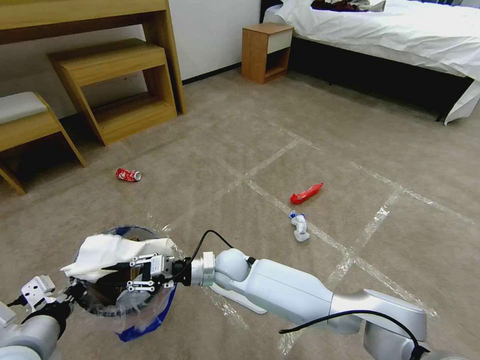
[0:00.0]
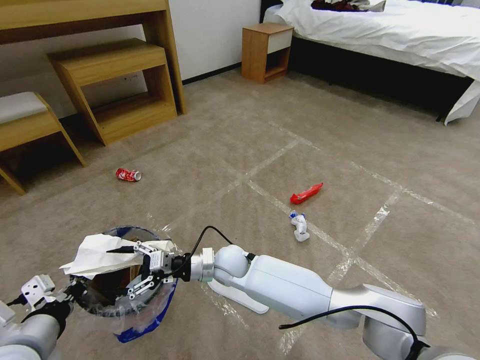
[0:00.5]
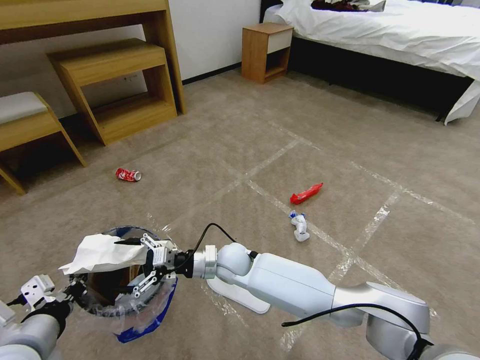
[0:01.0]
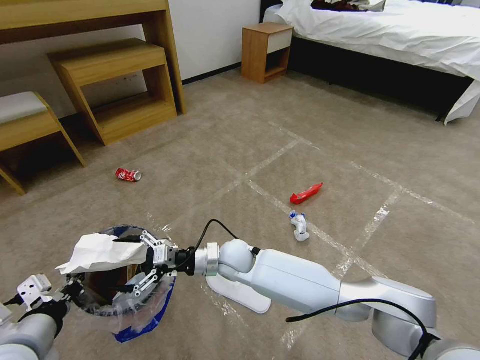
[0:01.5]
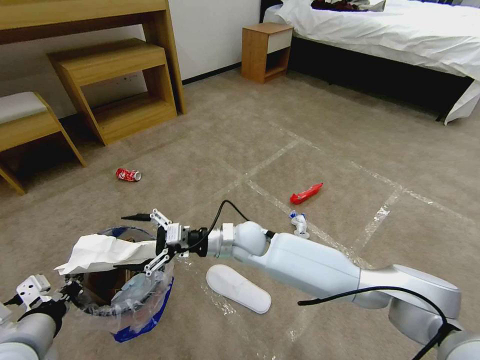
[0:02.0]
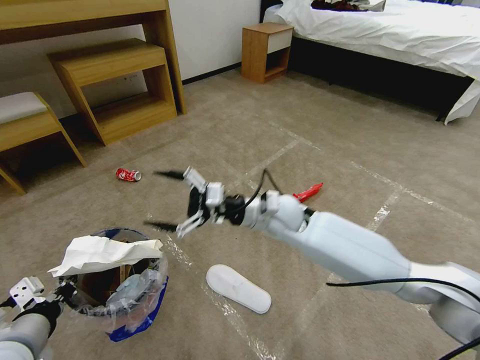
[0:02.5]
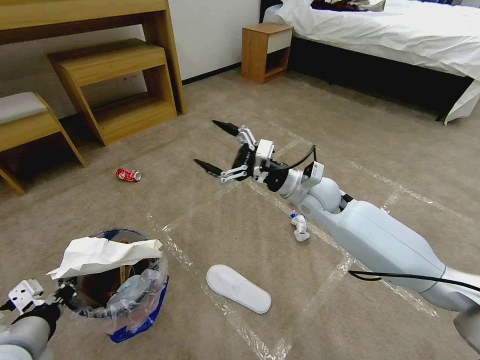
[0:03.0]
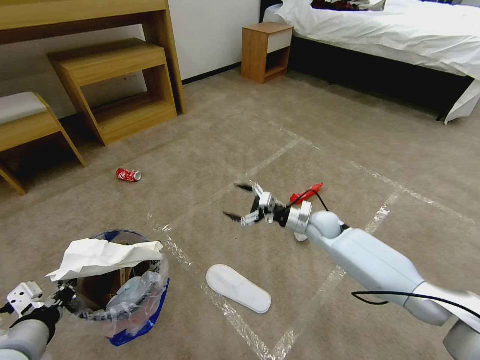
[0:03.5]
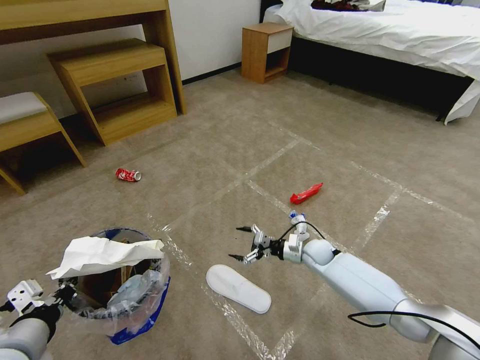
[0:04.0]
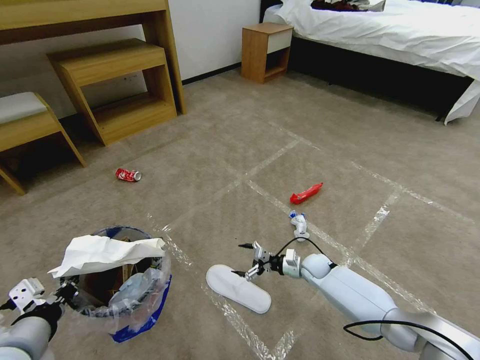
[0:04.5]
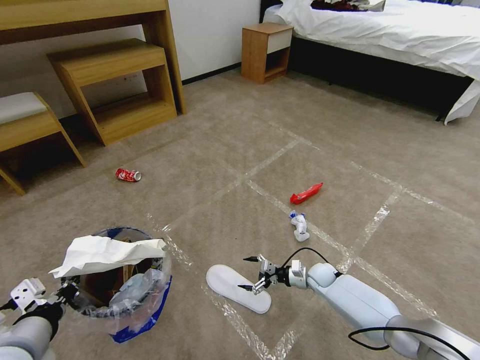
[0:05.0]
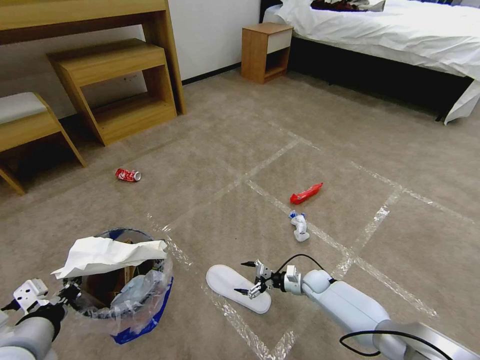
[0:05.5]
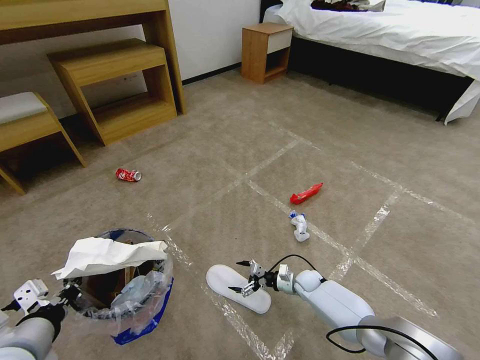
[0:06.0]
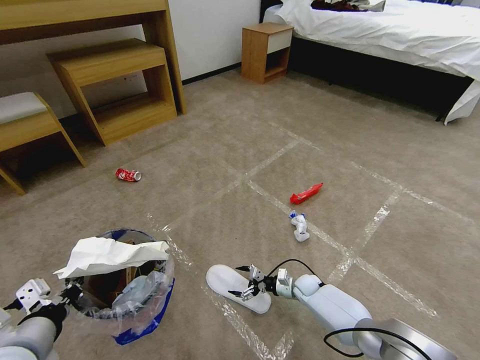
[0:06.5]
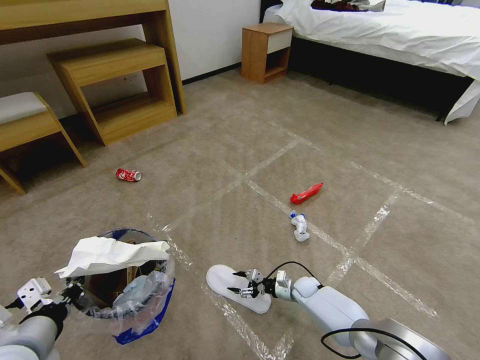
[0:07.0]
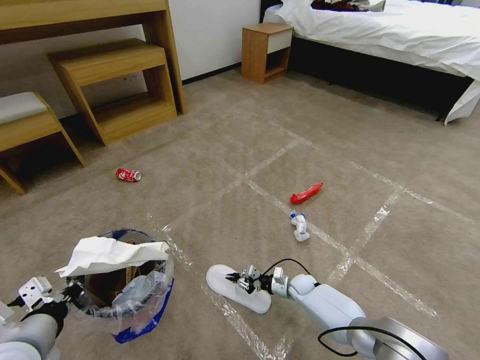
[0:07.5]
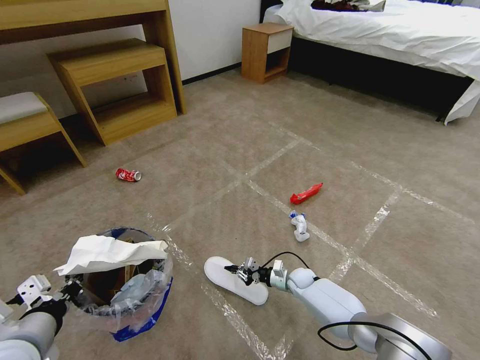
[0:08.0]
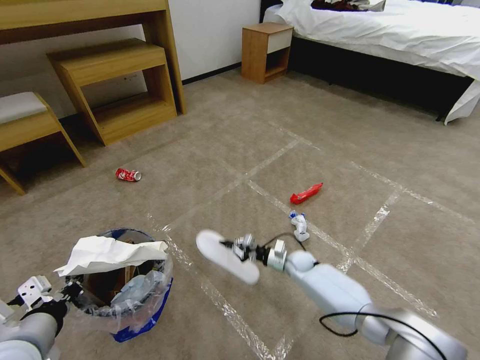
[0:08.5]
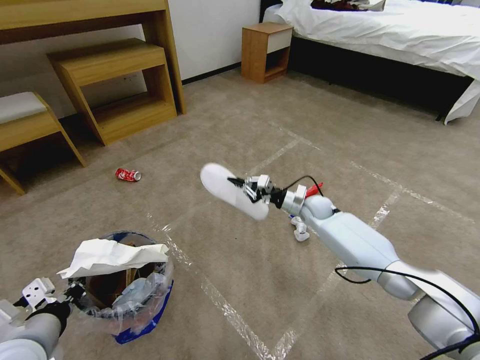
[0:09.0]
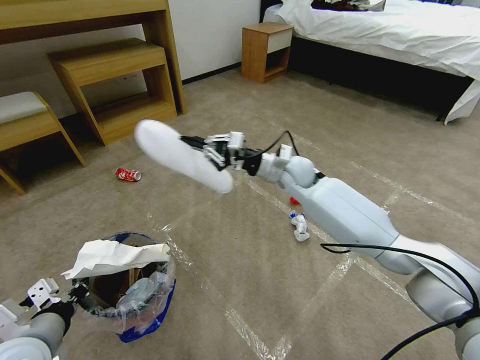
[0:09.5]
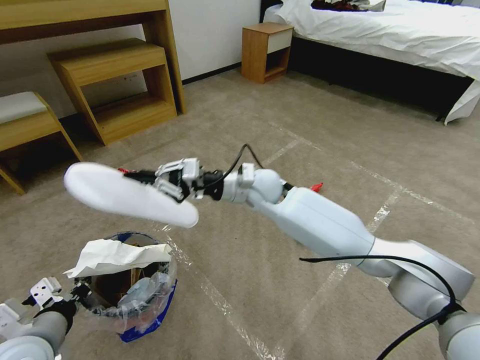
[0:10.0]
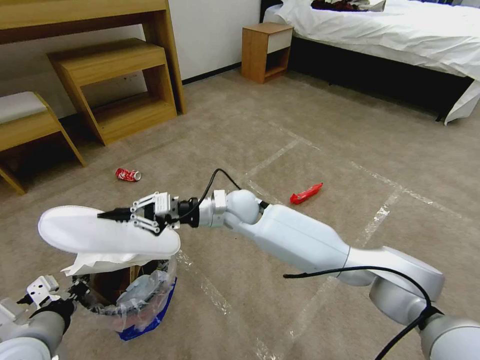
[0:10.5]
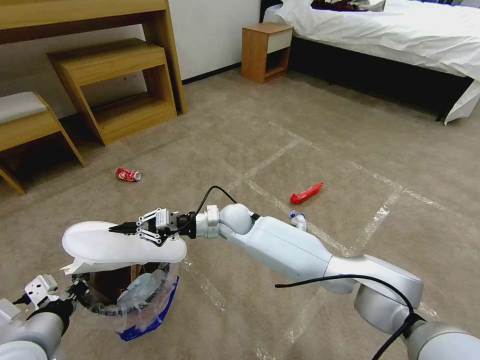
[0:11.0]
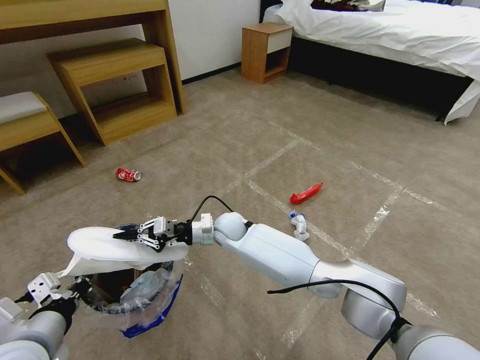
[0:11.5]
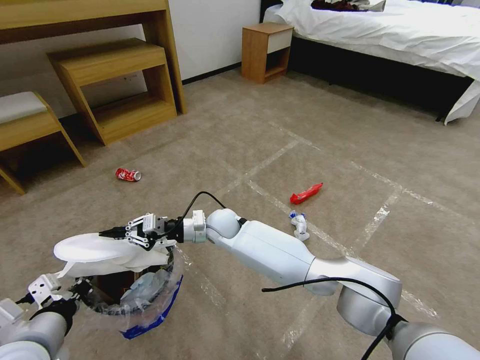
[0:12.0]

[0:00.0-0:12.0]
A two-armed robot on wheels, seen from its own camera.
Task of the whole recording: Pick up the trash bin and place the garbage on the floor into it.
0:00.0 to 0:02.0: The right gripper travels upward by about 5 cm, and opens its fingers.
0:02.0 to 0:04.0: The right gripper heads to the right and downward, covering approximately 30 cm.
0:04.0 to 0:06.0: The right gripper is displaced downward by roughly 10 cm.
0:06.0 to 0:08.0: The right gripper closes up.
0:08.0 to 0:10.0: The right gripper moves upward and to the left, about 40 cm.
0:10.0 to 0:12.0: The right gripper goes about 15 cm downward and to the left.

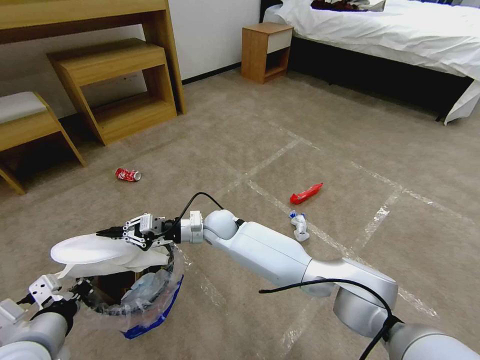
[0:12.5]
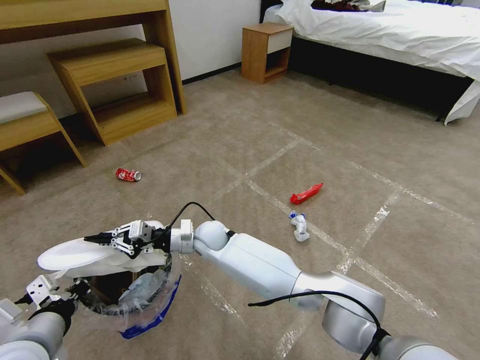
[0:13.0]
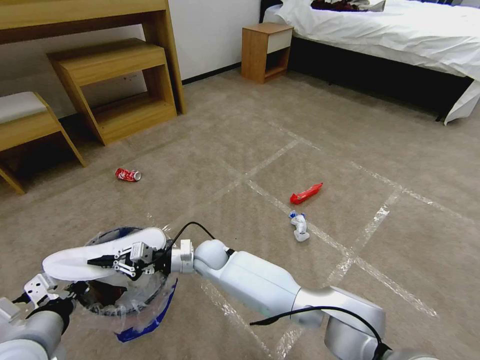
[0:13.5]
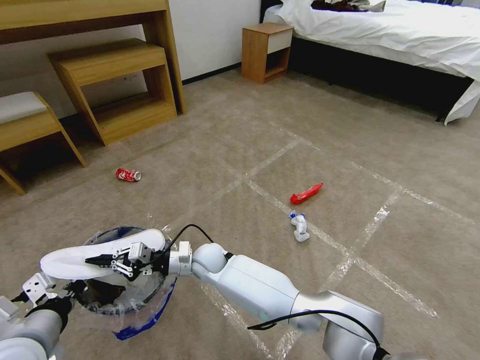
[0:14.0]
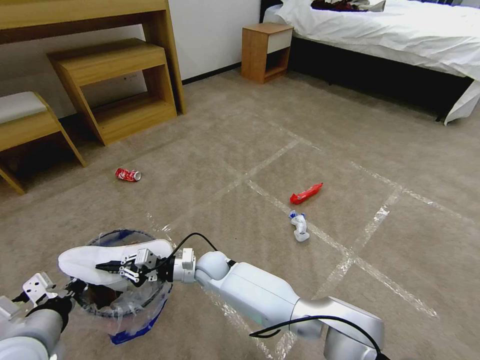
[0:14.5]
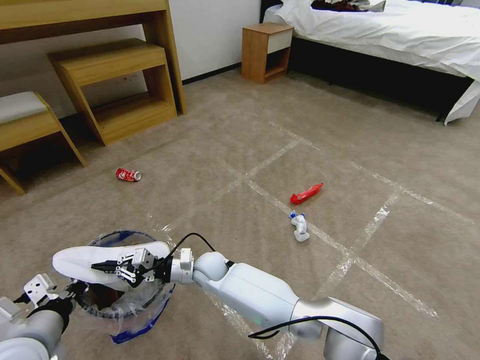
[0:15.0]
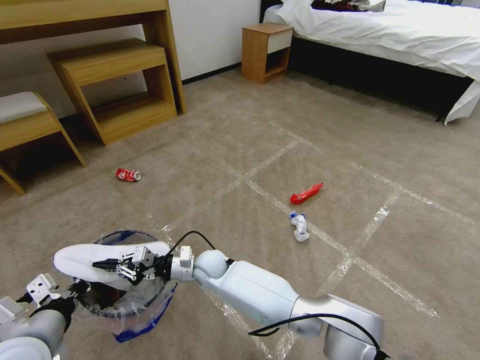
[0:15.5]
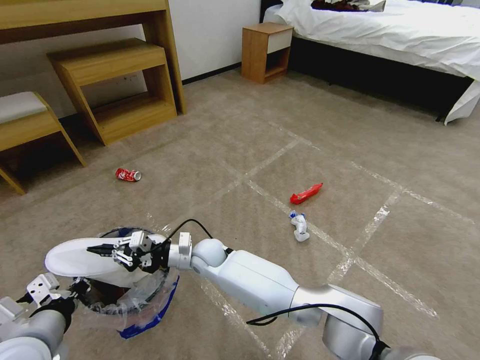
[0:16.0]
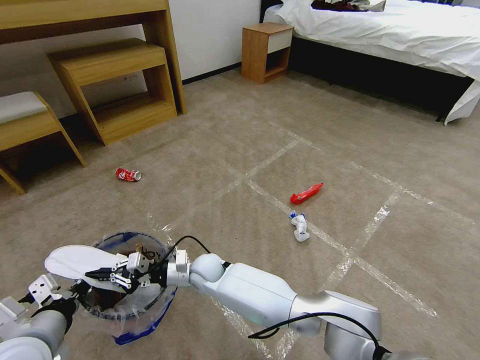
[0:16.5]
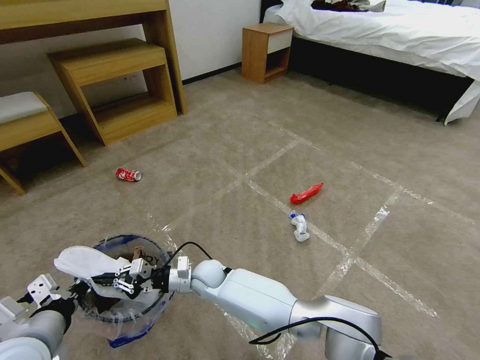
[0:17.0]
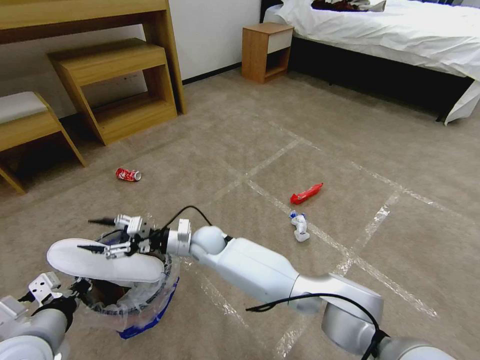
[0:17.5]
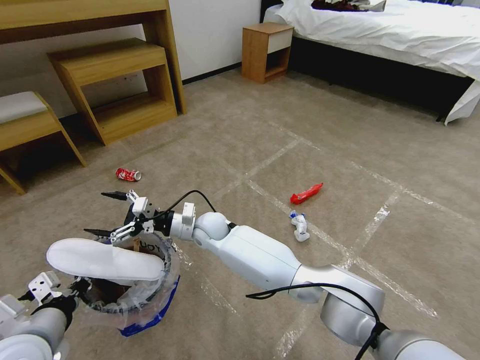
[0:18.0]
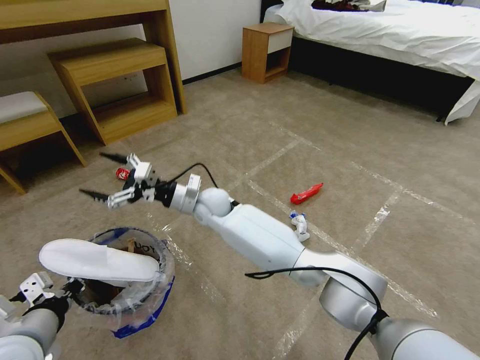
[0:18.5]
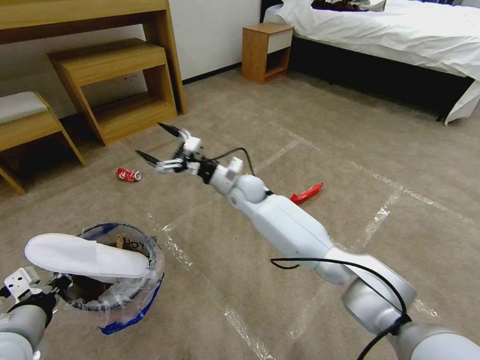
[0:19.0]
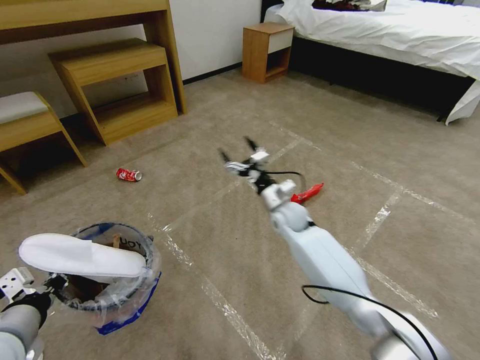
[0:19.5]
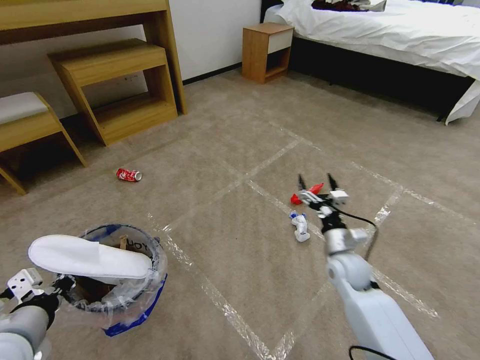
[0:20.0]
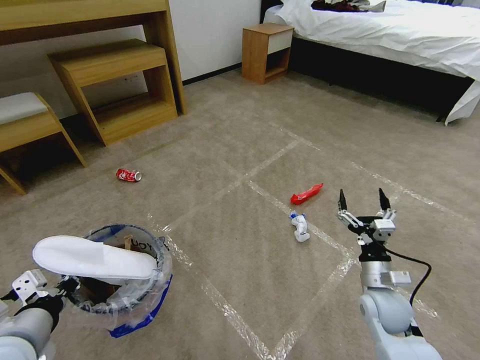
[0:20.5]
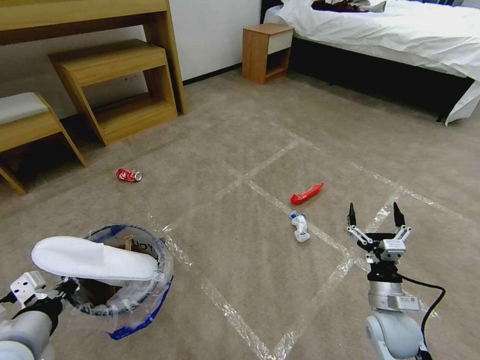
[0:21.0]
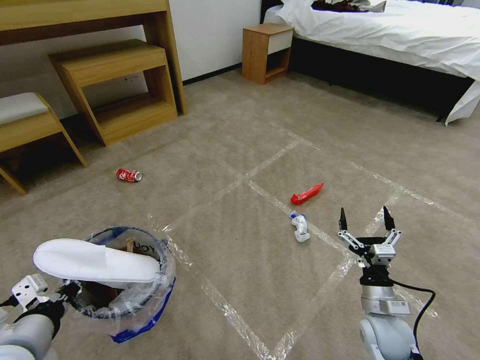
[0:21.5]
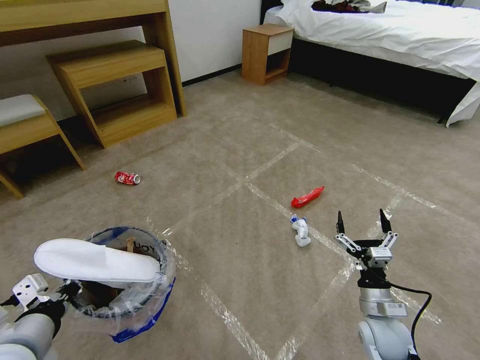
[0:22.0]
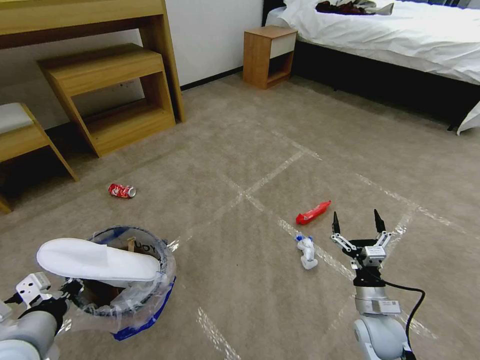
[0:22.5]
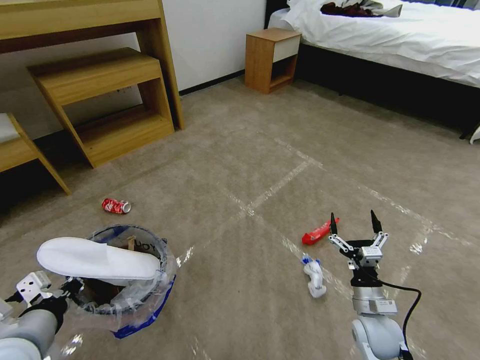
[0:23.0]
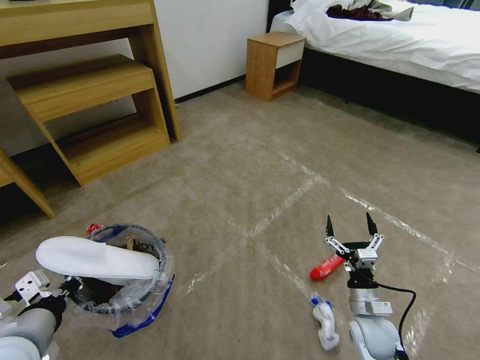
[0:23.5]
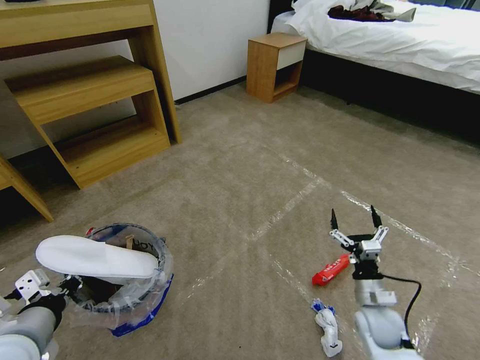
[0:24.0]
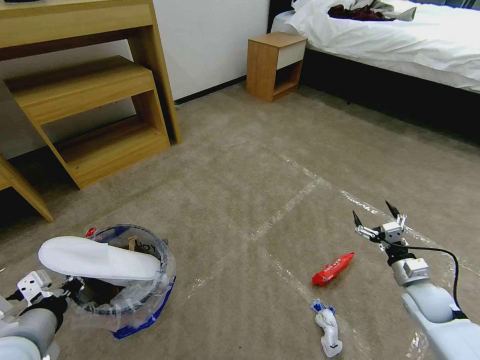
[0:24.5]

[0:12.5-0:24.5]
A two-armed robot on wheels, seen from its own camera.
Task of the whole recording: Pick up the trash bin and place the garbage on the floor into it.
0:12.5 to 0:14.5: The right gripper goes roughly 10 cm downward and backward.
0:14.5 to 0:16.5: The grippers stay close to where they were, moving slightly.
0:16.5 to 0:18.5: The right gripper travels upward and forward by approximately 20 cm, and opens its fingers.
0:18.5 to 0:20.5: The right gripper is displaced to the right and backward by some 50 cm.
0:20.5 to 0:22.5: The right gripper changes place by approximately 5 cm.
0:22.5 to 0:24.5: The right gripper is displaced to the right and forward by some 15 cm.

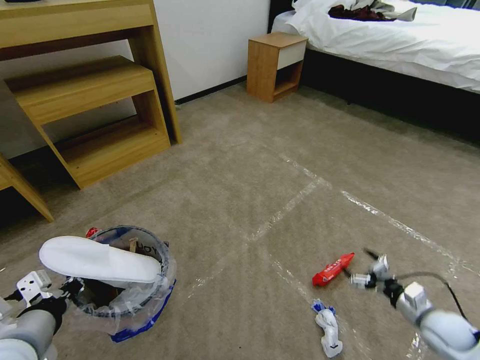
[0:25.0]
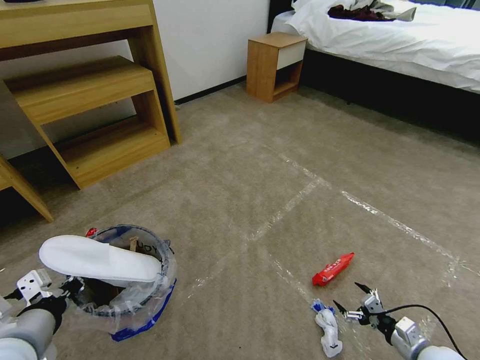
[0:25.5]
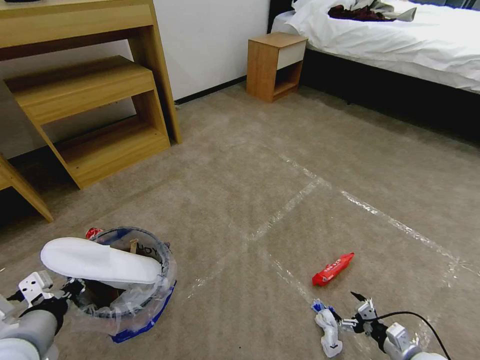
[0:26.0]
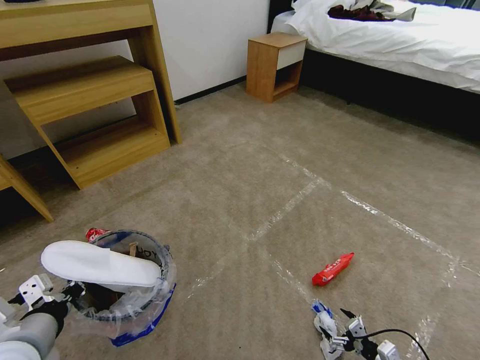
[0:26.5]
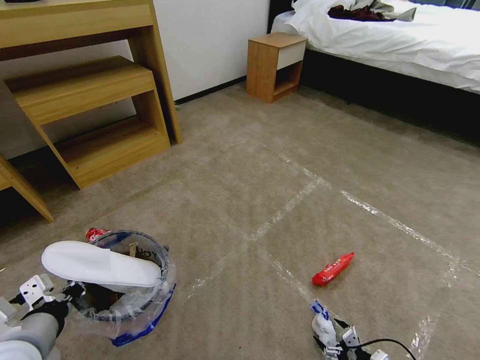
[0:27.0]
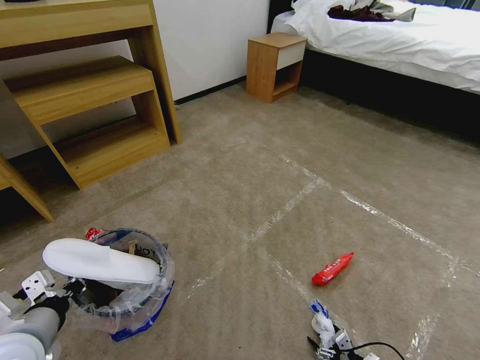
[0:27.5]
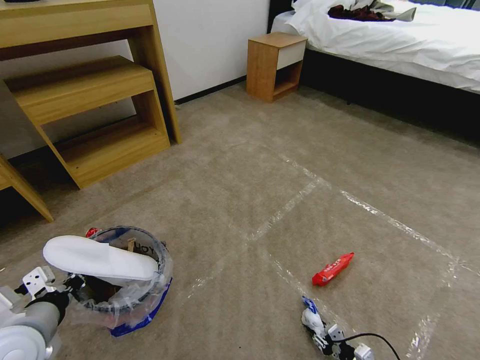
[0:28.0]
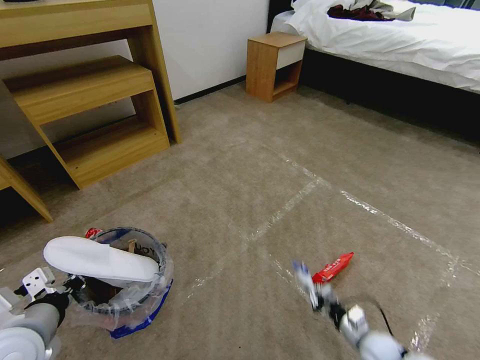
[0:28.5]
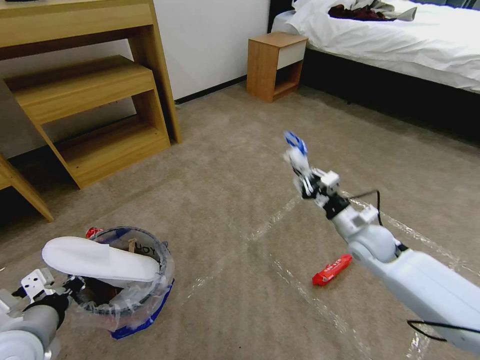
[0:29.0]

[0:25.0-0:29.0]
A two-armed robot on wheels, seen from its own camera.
Task of the whole recording: Pick up the trash bin and place the garbage on the floor into it.
0:25.0 to 0:27.0: The right gripper heads downward, backward and to the left, covering roughly 20 cm.
0:27.0 to 0:29.0: The right gripper goes about 40 cm forward and upward, and closes up.
